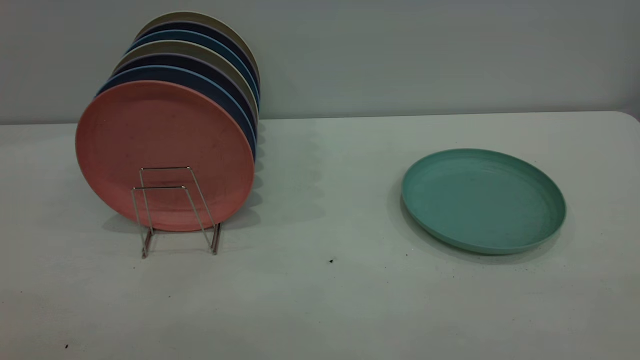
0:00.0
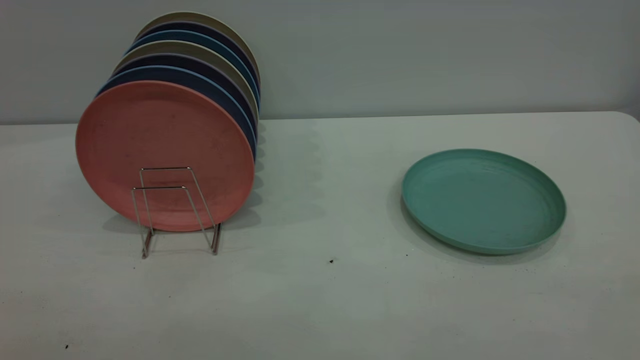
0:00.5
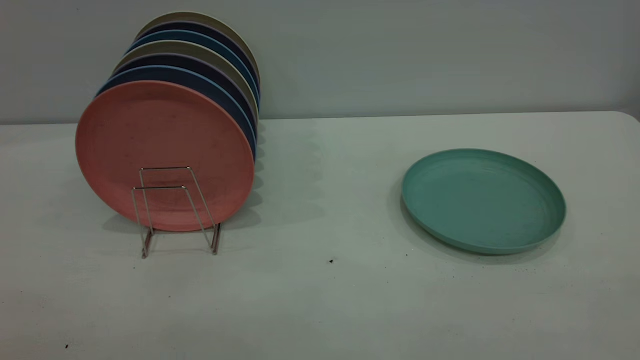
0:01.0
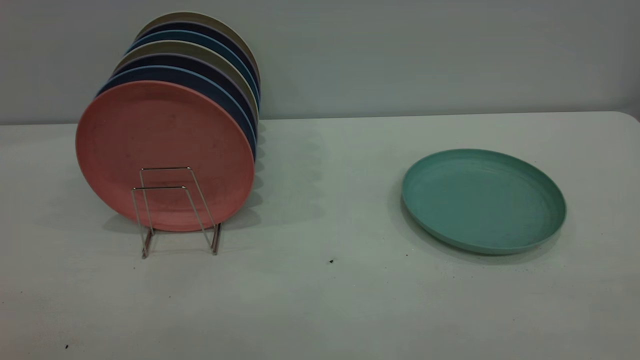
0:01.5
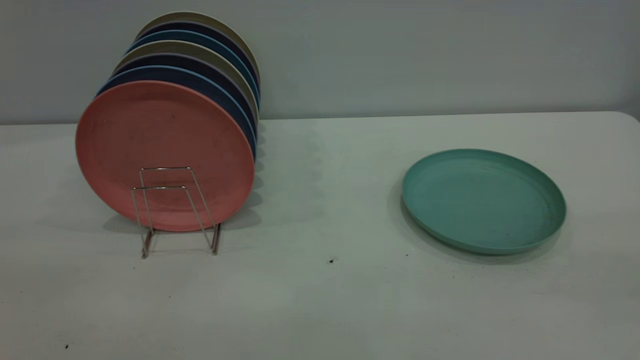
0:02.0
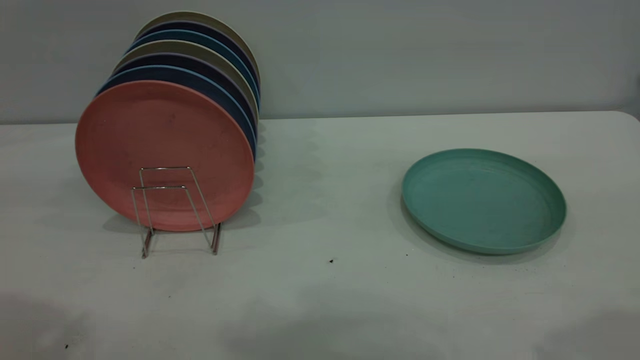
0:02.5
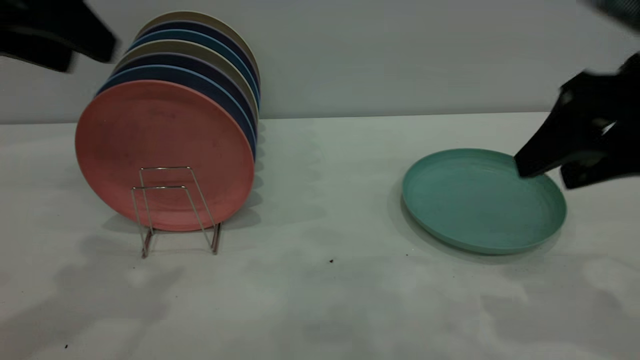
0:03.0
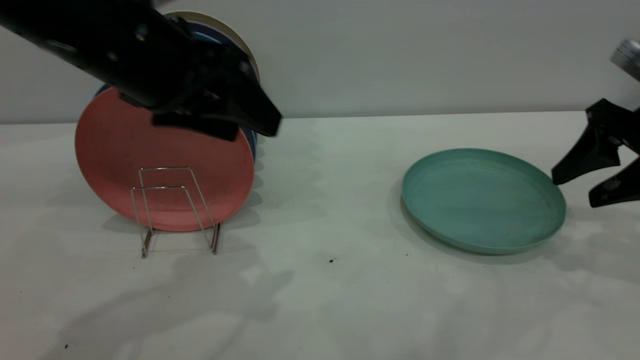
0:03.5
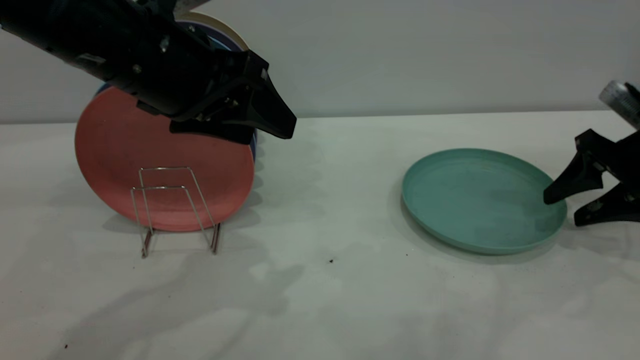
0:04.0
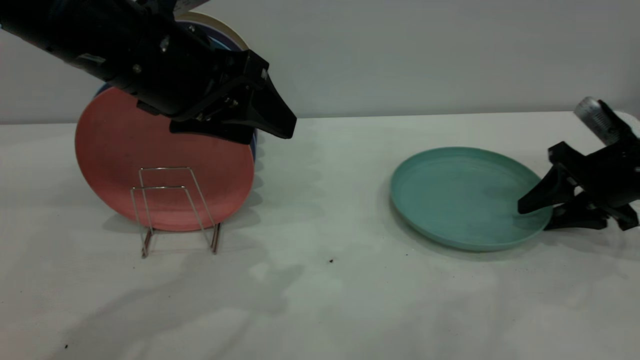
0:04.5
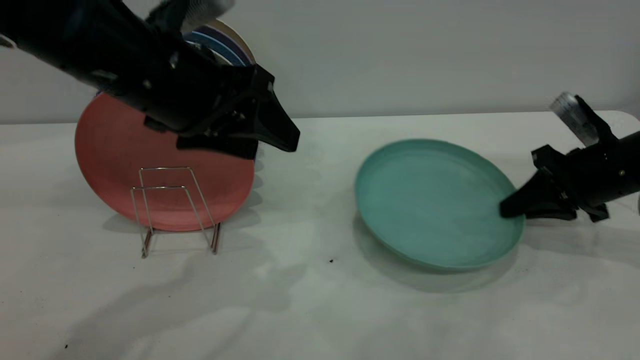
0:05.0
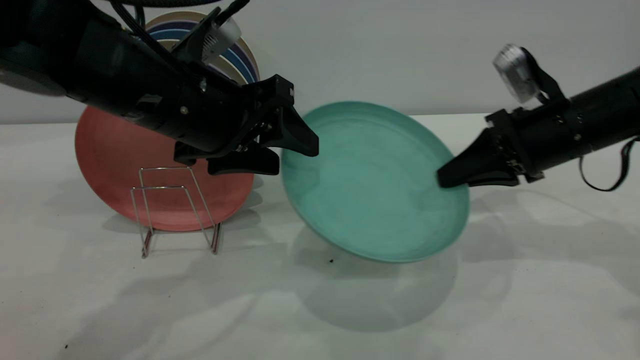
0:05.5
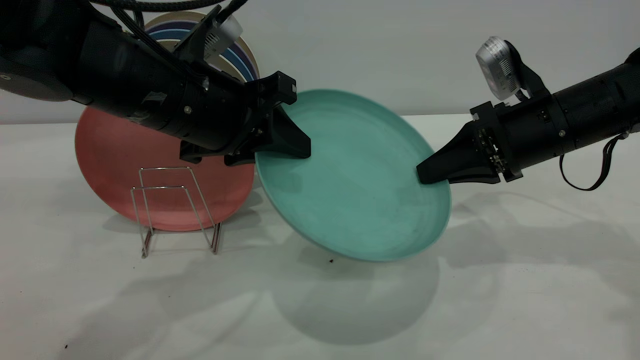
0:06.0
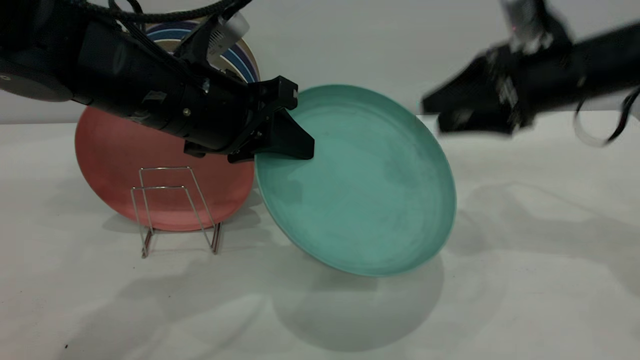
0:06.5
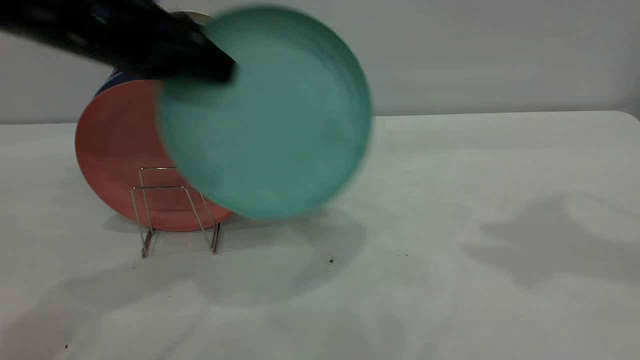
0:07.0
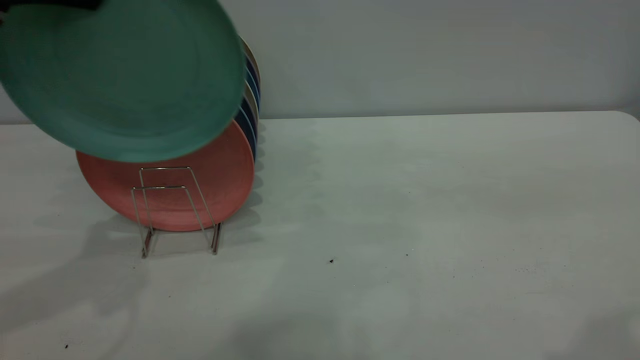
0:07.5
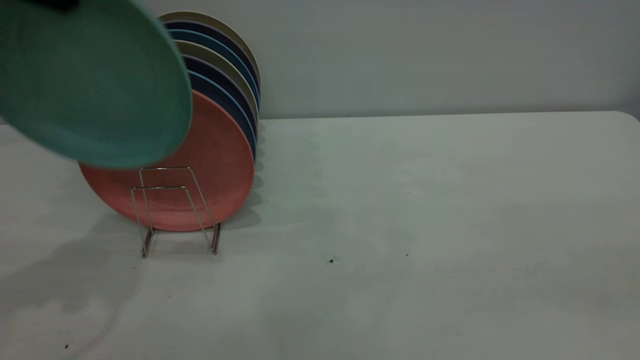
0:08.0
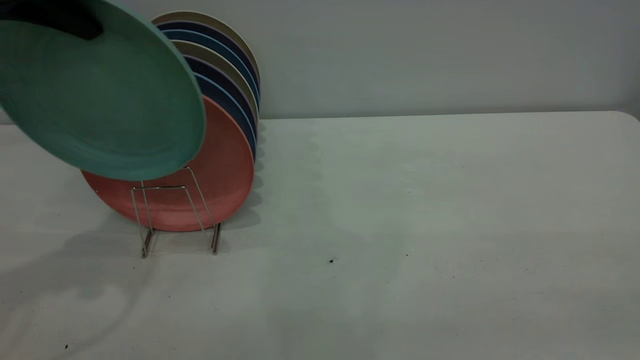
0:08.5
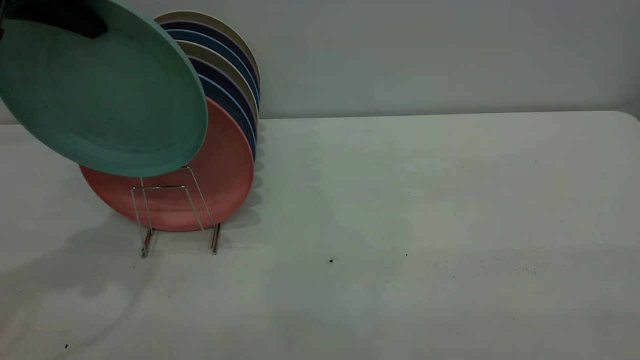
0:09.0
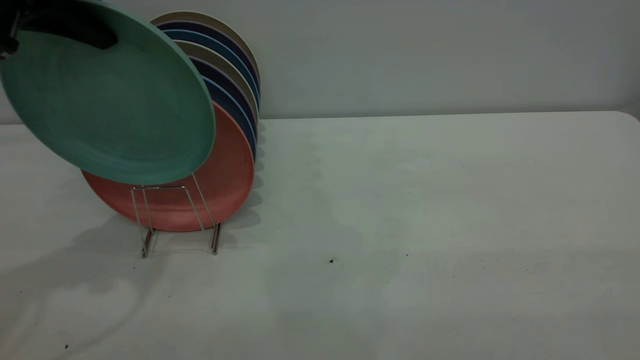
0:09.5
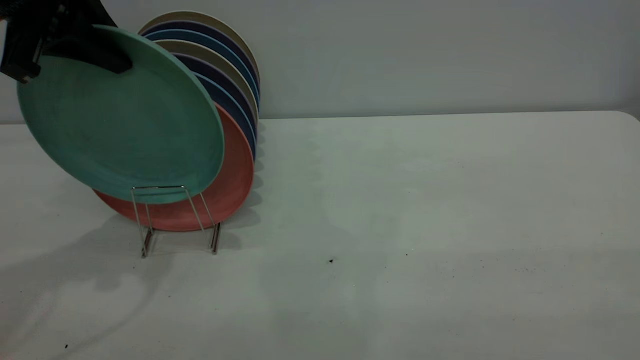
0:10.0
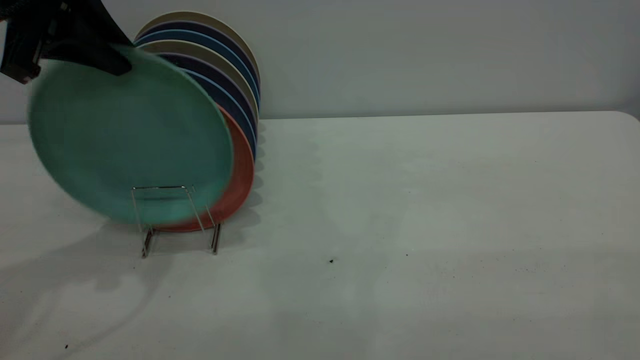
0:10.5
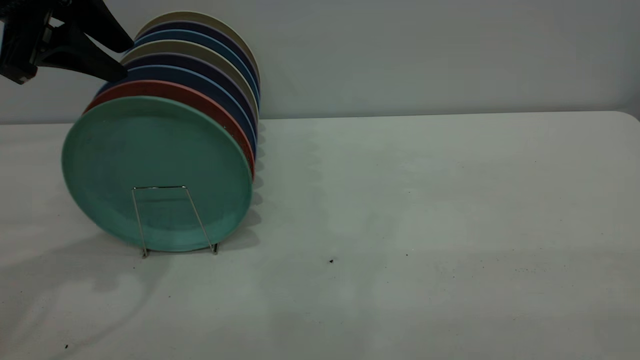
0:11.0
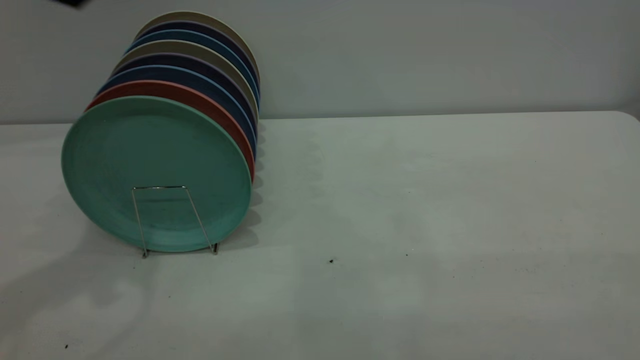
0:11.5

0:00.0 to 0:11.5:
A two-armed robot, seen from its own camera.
Task of the whole recording: the right gripper grasp the green plate, the right gripper pass the green plate to the left gripper, and the left gripper place the green plate on the plate rack.
Step, 0:00.0 to 0:05.0: Pick up the plate with the right gripper.
Step, 0:05.5 to 0:06.5: Pass the plate from the right gripper to the left gripper.
Step, 0:07.0 to 0:11.0: Place the plate on the shelf.
0:02.0 to 0:04.0: The right gripper moves forward and downward, some 40 cm, while the left gripper goes some 35 cm forward, downward and to the right.
0:04.0 to 0:06.0: The right gripper travels to the left by some 15 cm, and closes its fingers, while the left gripper heads downward, covering approximately 5 cm, and closes.
0:06.0 to 0:07.5: The right gripper moves upward and backward, approximately 35 cm, and opens. The left gripper goes about 20 cm upward and to the left.
0:07.5 to 0:09.5: The right gripper is displaced backward by some 15 cm.
0:09.5 to 0:11.5: The left gripper travels upward by about 5 cm, and opens its fingers.
